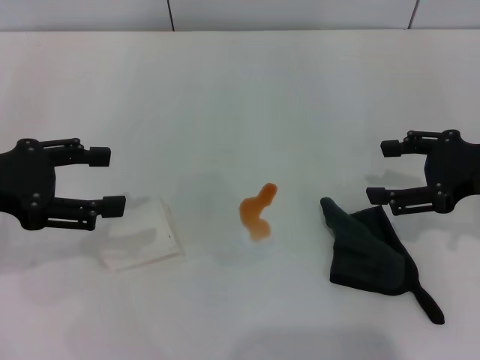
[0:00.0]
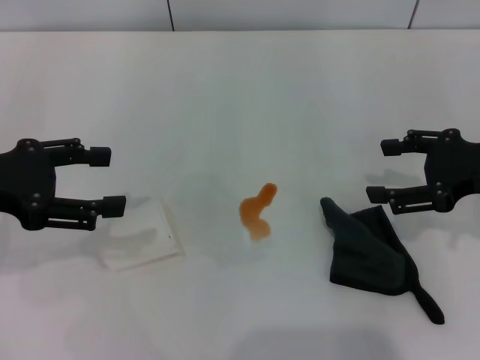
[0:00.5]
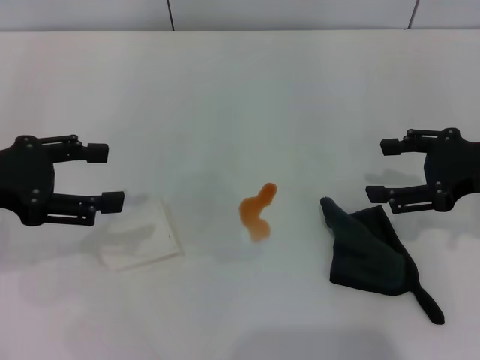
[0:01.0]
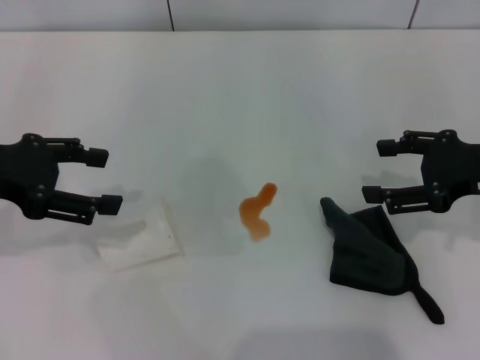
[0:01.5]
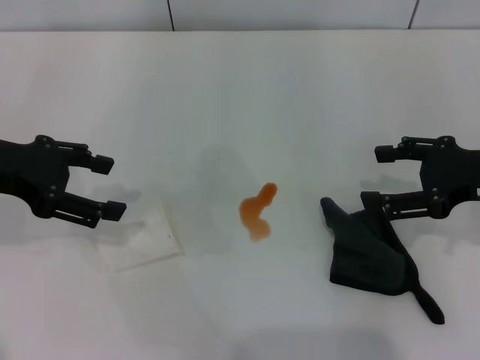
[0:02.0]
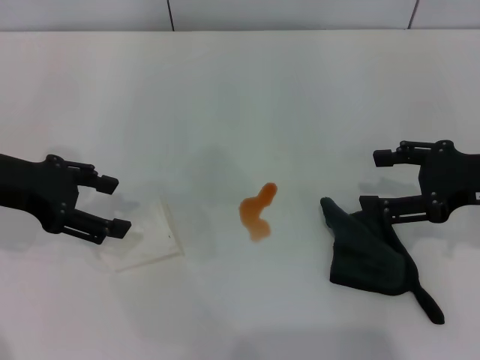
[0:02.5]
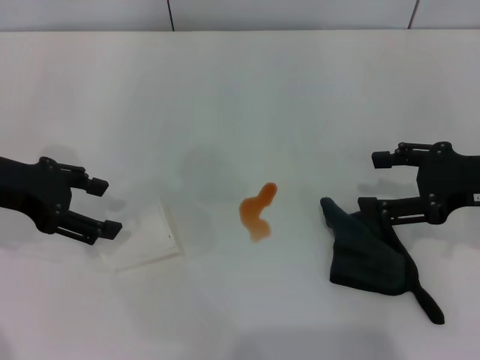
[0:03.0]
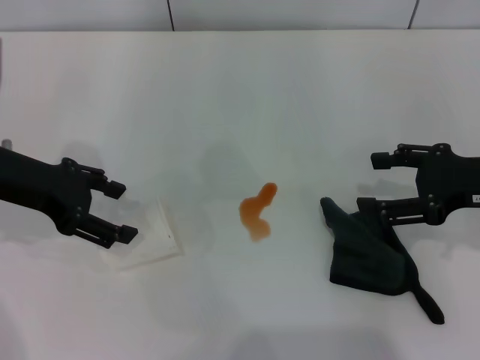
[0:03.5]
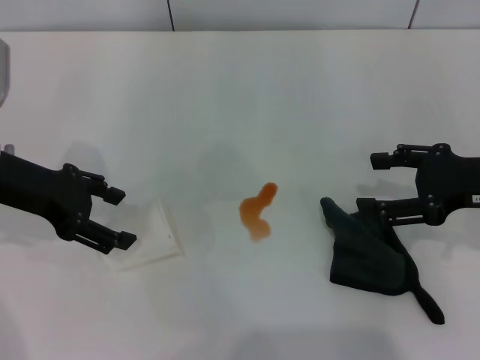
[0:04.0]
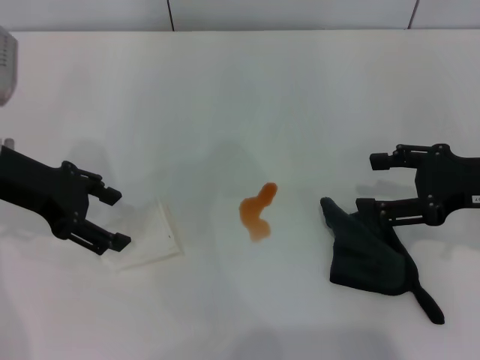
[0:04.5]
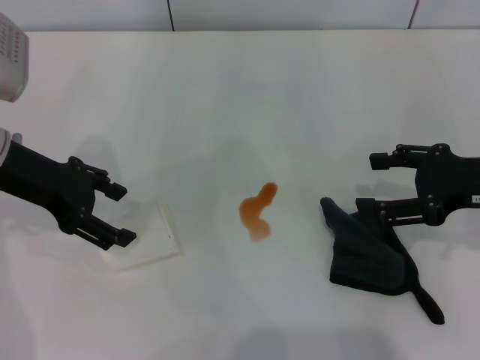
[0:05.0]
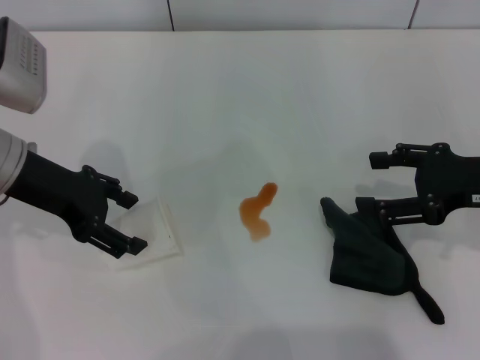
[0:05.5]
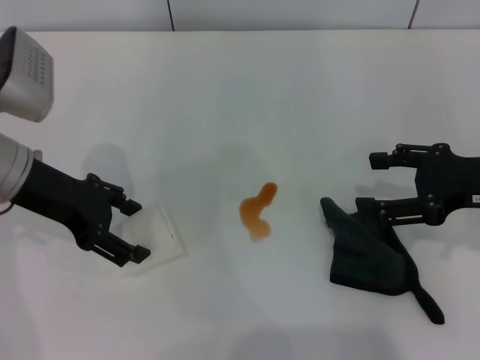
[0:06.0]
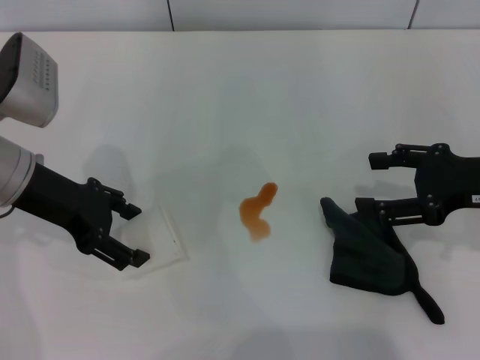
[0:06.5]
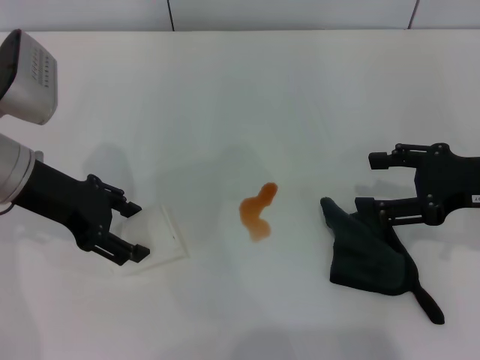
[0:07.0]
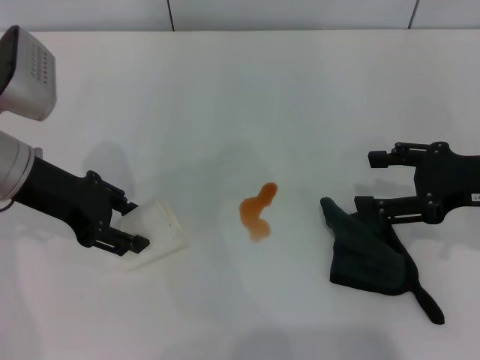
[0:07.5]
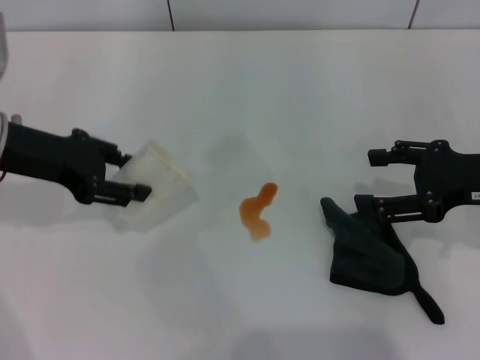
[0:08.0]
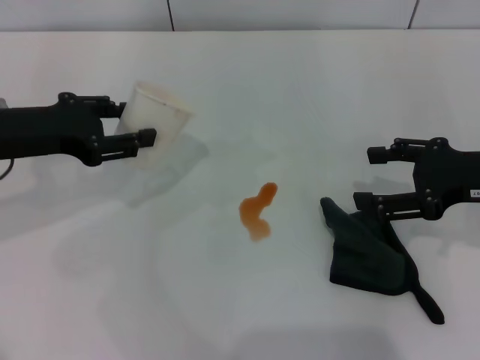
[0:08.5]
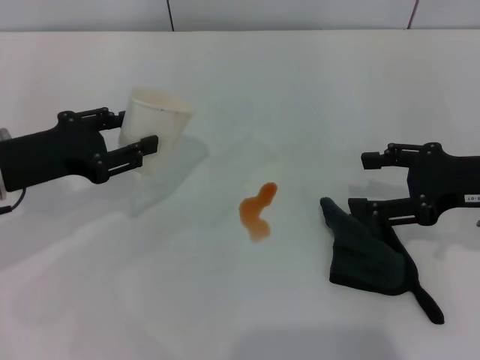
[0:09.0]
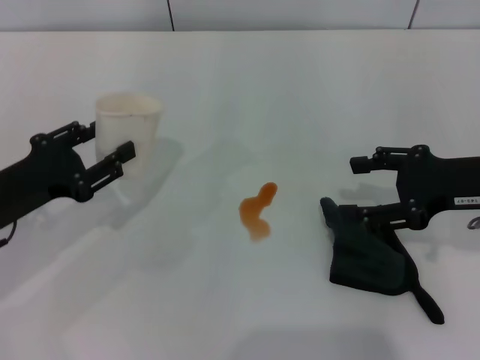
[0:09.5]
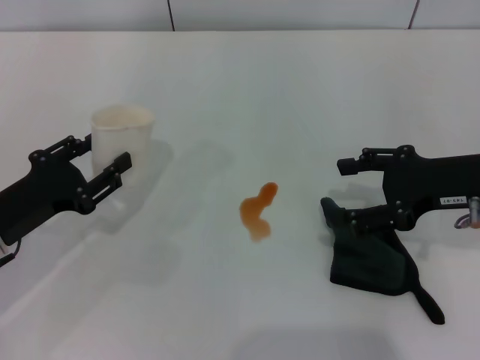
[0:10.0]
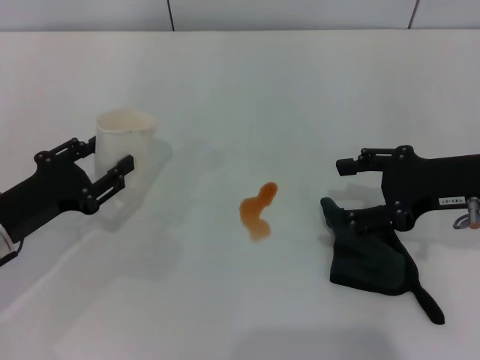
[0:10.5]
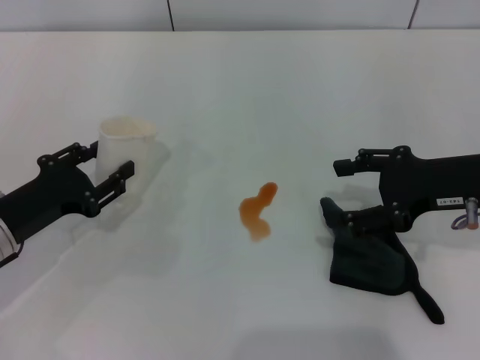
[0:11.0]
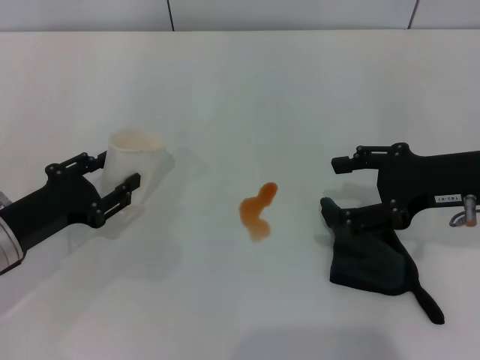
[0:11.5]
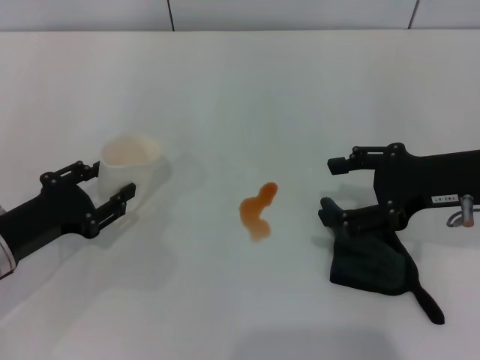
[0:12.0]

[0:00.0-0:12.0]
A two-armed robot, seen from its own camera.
Step, 0:00.0 to 0:07.0: Grasp the paper cup with the left gripper.
0:00.0 to 0:02.0: The grippers move only a little.
0:02.0 to 0:04.0: There are only small adjustments of the grippers.
0:04.0 to 0:06.0: The grippers move only a little.
0:06.0 to 0:08.0: The left gripper closes.
0:08.0 to 0:10.0: The left gripper travels downward and backward by some 15 cm.
0:10.0 to 0:12.0: The grippers stay close to where they were, moving slightly.

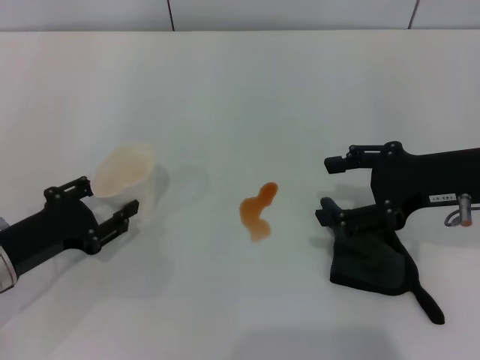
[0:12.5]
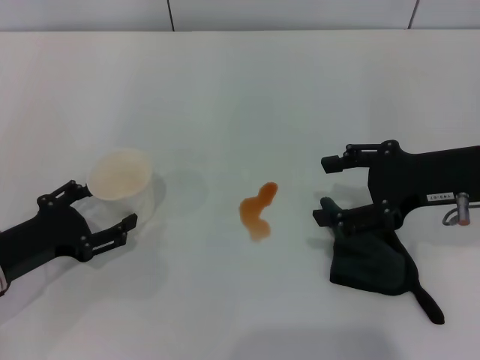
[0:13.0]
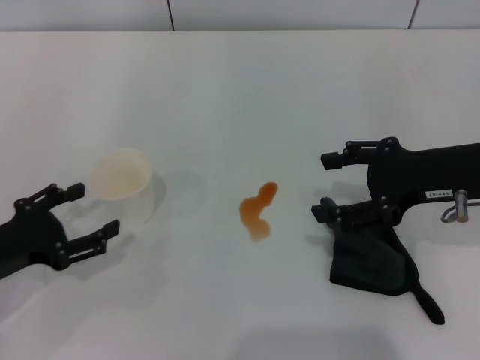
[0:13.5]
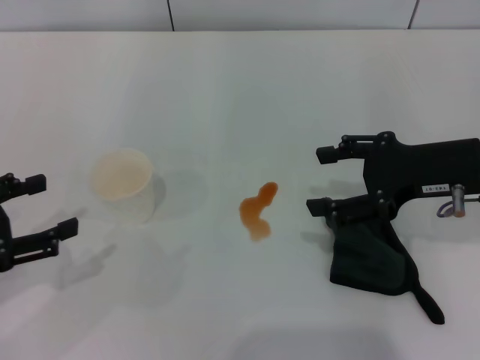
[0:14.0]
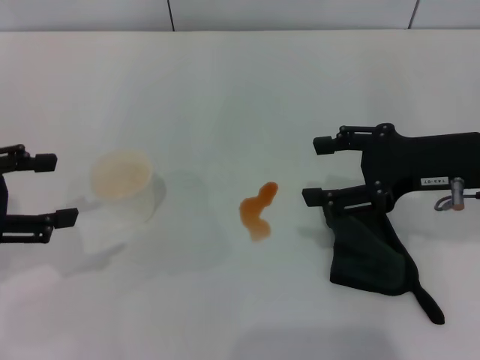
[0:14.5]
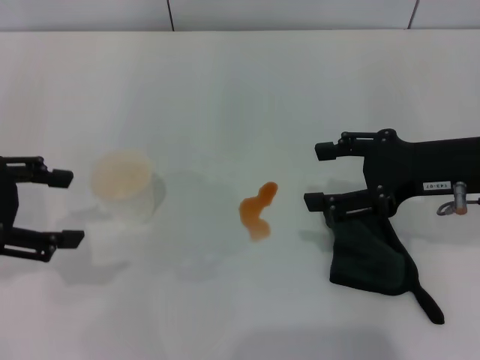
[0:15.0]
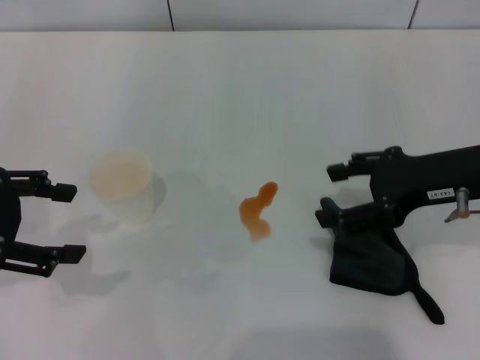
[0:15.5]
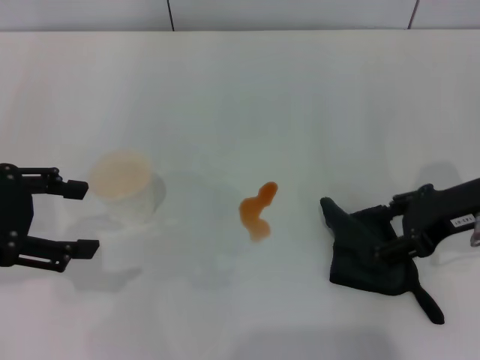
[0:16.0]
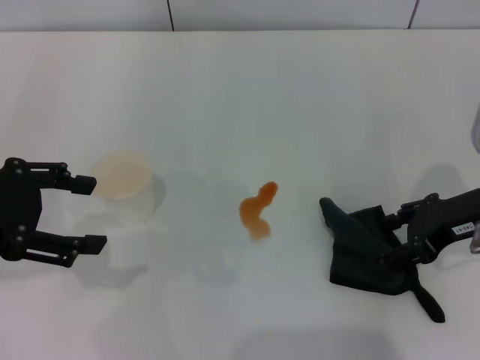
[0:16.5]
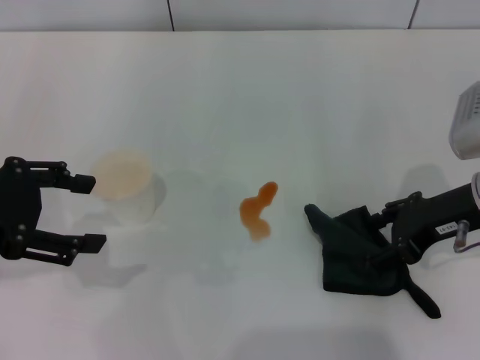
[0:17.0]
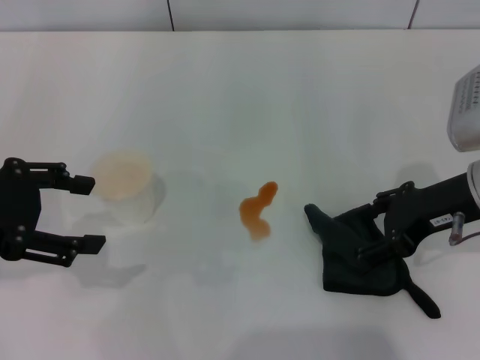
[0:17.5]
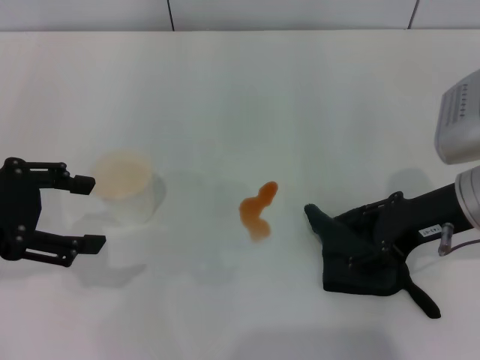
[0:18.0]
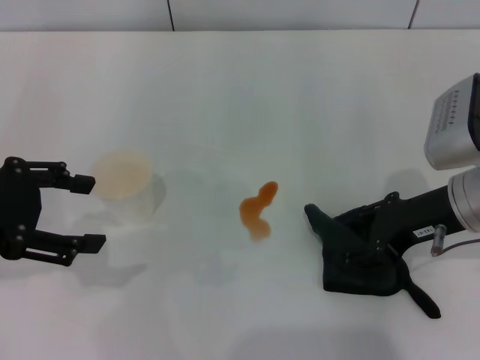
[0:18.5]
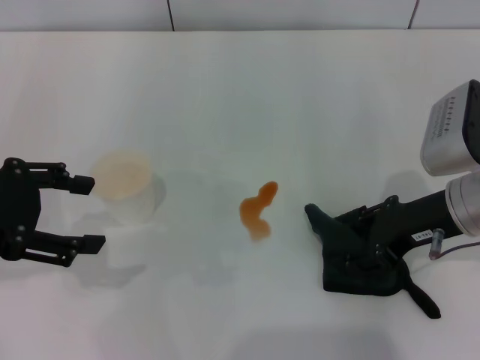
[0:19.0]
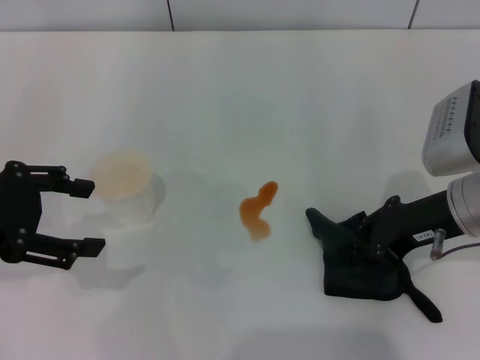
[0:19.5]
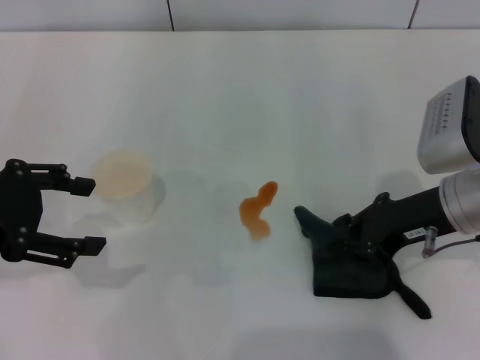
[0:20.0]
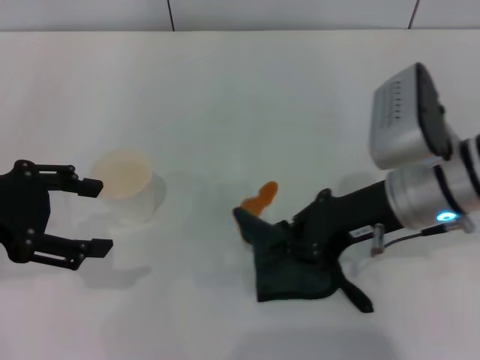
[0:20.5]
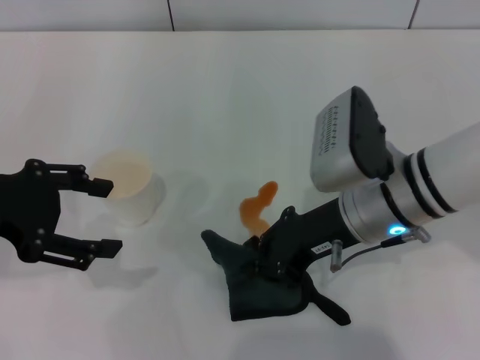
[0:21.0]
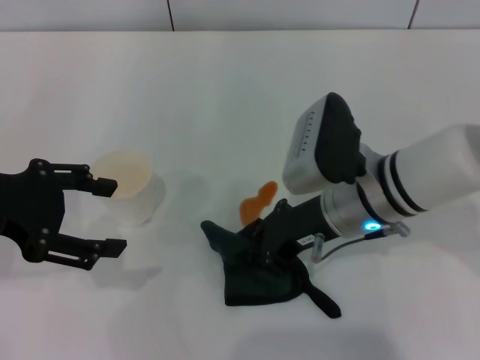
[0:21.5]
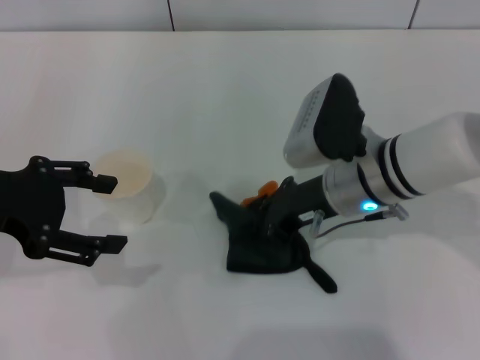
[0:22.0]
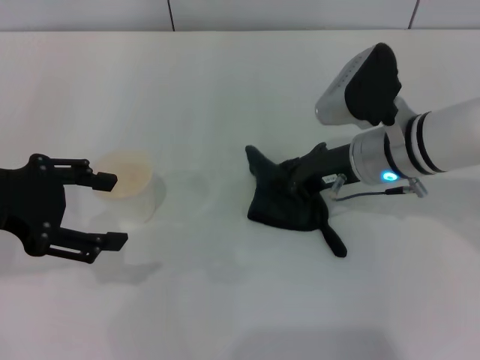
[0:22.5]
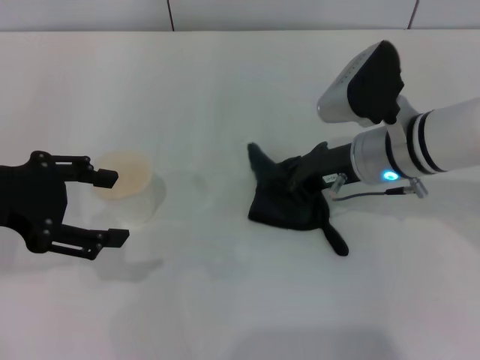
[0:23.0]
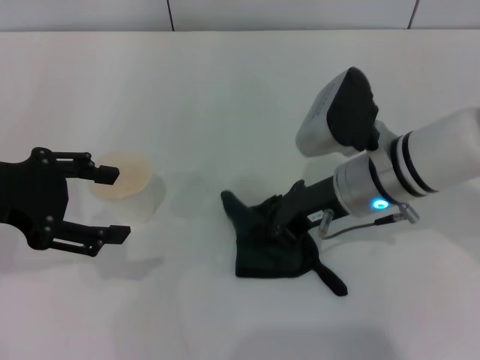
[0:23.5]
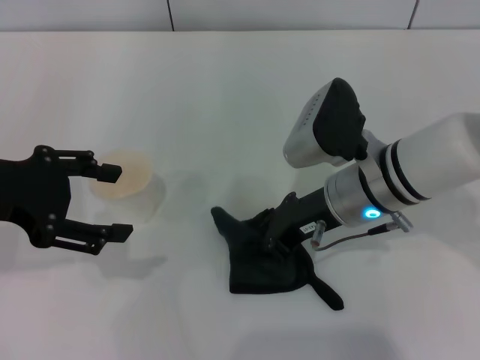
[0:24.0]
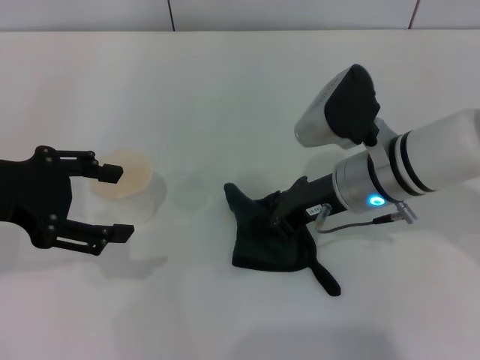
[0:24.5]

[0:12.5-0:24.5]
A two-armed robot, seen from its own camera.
Step, 0:14.0 to 0:20.0: Grasp the rag with the right gripper.
0:12.5 to 0:14.5: The left gripper shifts approximately 15 cm upward, and opens its fingers.
0:16.5 to 0:18.5: The grippers stay close to where they were, moving slightly.
0:18.5 to 0:20.5: The right gripper goes about 5 cm to the left, and closes up.
0:20.5 to 0:22.5: The right gripper goes roughly 5 cm forward.
0:22.5 to 0:24.5: The grippers stay close to where they were, moving slightly.

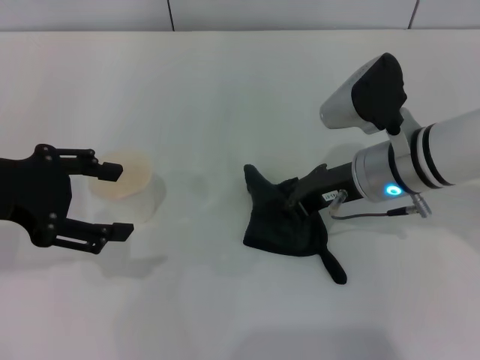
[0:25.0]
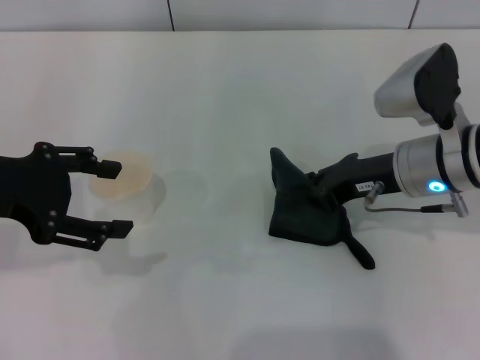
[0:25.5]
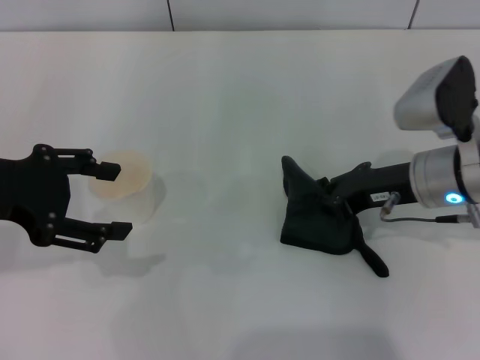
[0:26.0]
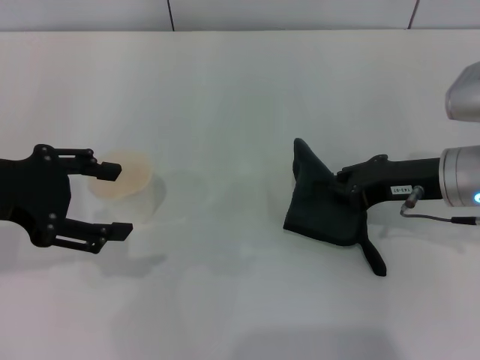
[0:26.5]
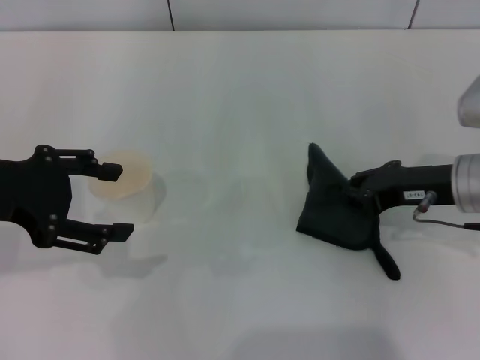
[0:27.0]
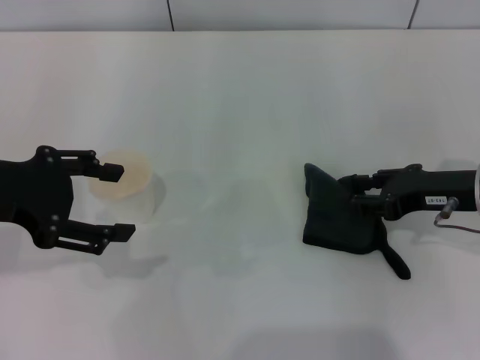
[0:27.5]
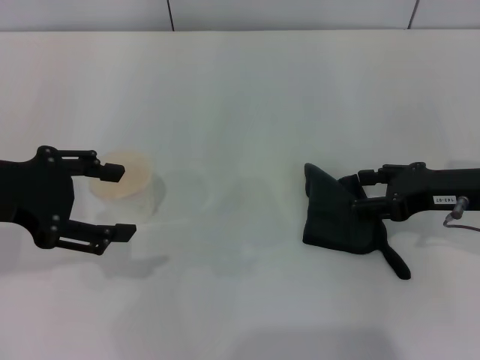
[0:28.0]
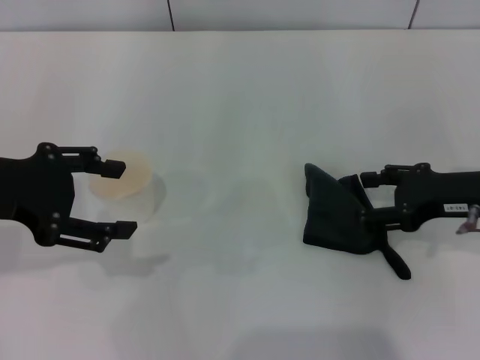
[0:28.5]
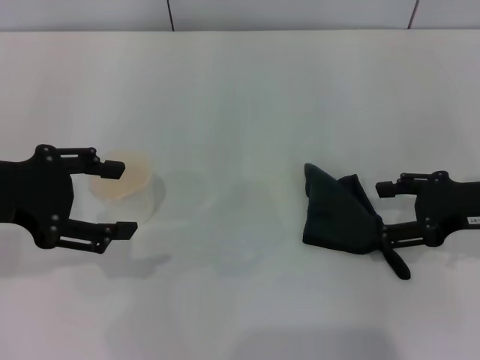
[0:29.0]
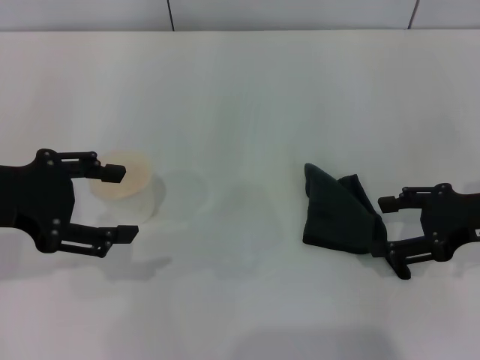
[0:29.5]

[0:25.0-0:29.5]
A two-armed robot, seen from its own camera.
0:25.0 to 0:27.0: The right gripper is displaced to the right by about 10 cm.
0:27.0 to 0:29.5: The right gripper moves to the right, approximately 5 cm, and opens its fingers.
